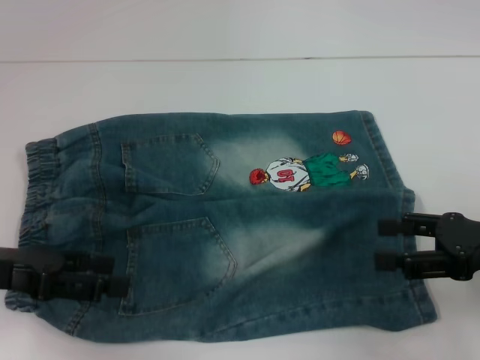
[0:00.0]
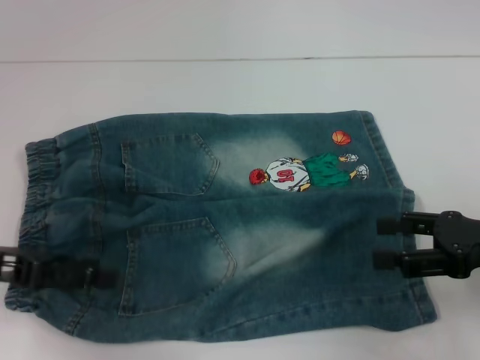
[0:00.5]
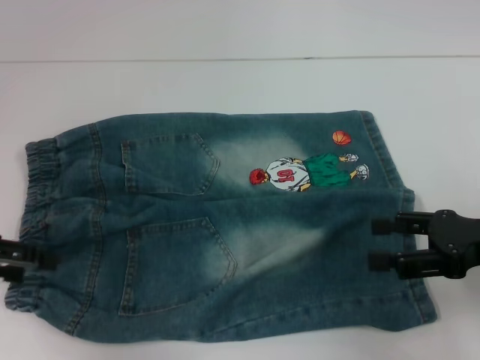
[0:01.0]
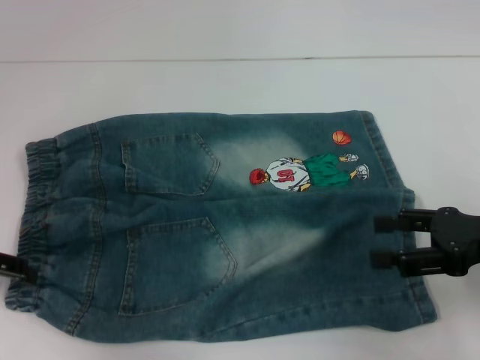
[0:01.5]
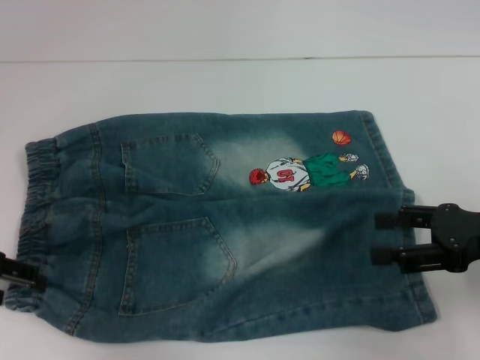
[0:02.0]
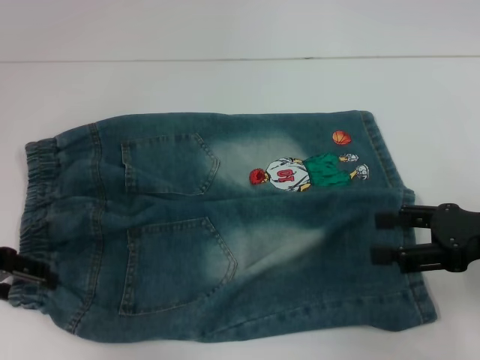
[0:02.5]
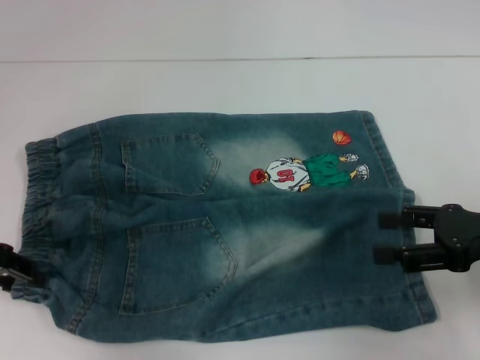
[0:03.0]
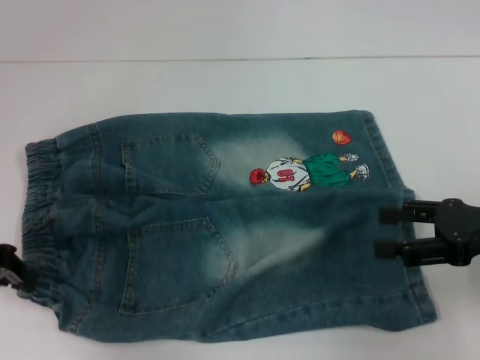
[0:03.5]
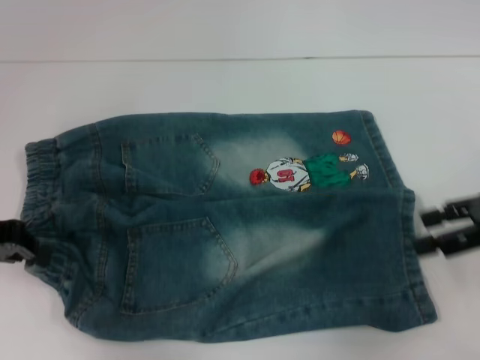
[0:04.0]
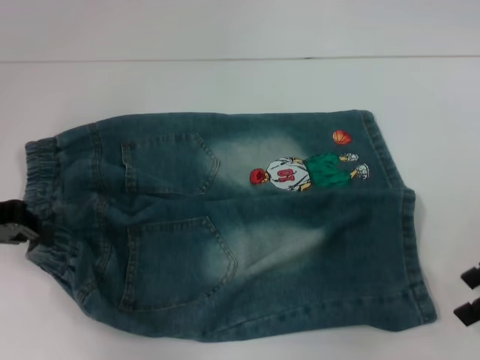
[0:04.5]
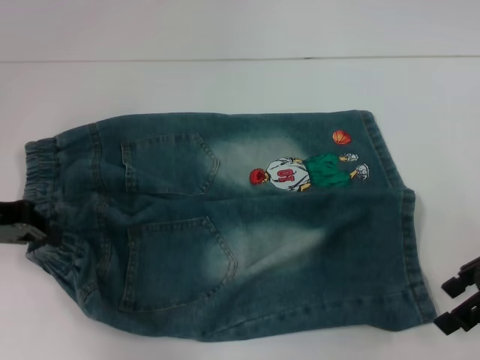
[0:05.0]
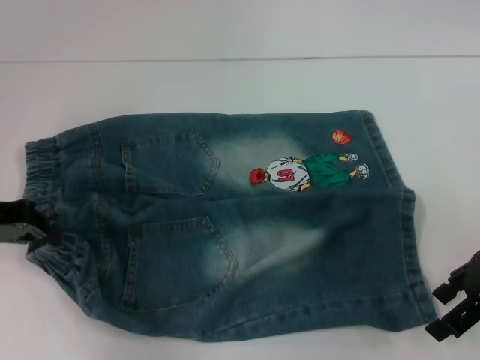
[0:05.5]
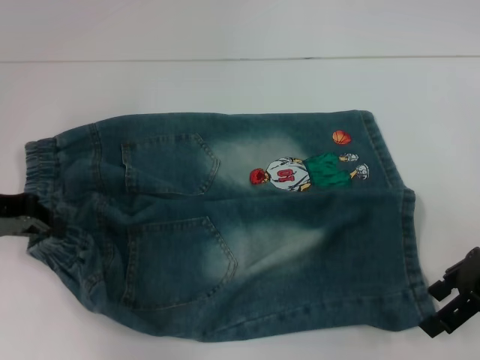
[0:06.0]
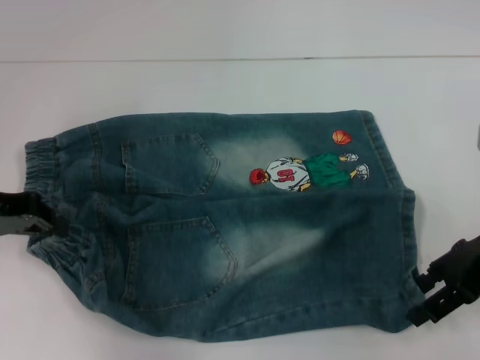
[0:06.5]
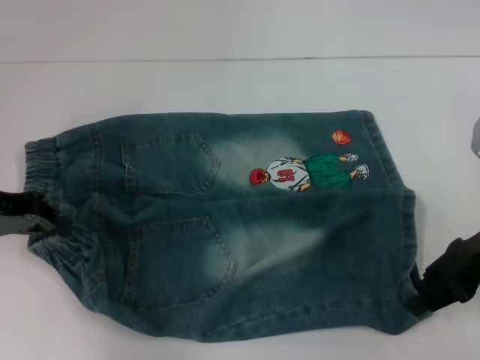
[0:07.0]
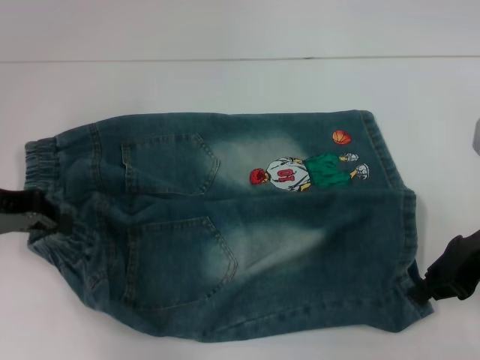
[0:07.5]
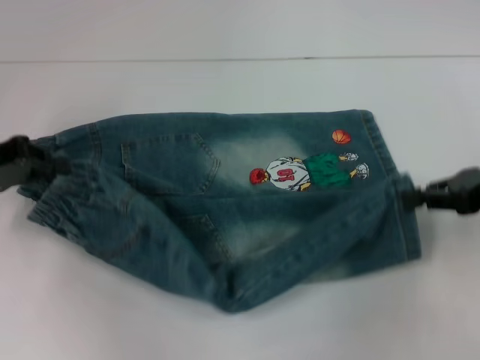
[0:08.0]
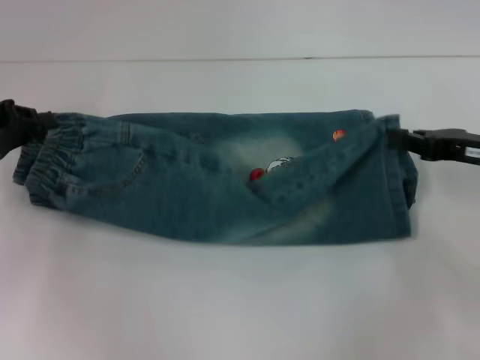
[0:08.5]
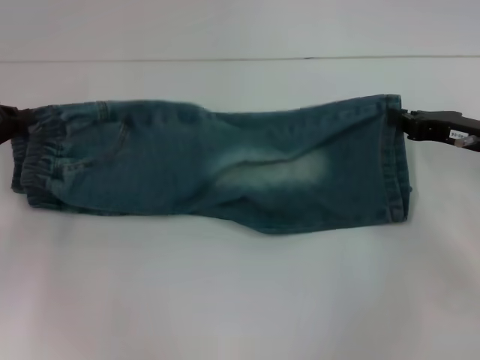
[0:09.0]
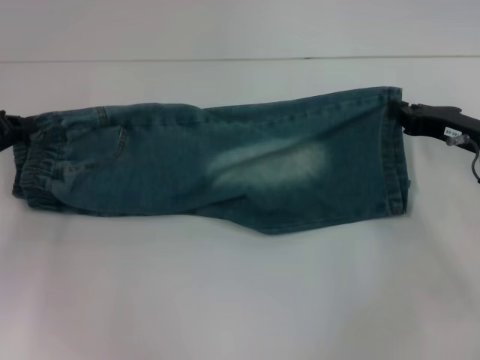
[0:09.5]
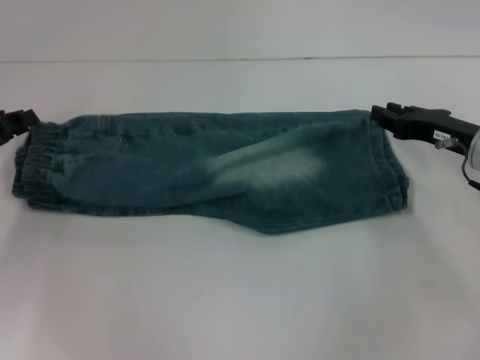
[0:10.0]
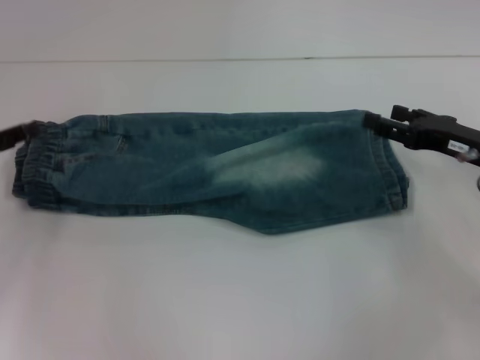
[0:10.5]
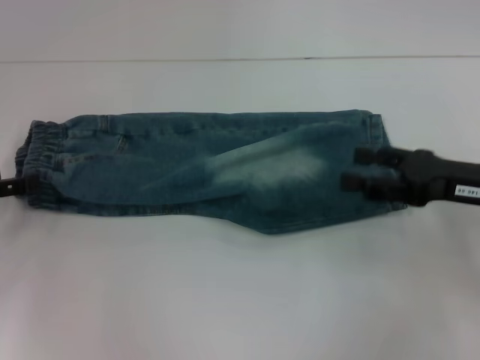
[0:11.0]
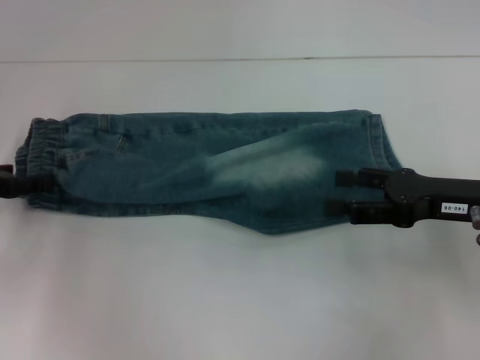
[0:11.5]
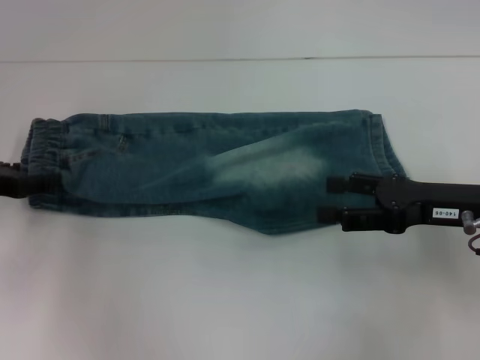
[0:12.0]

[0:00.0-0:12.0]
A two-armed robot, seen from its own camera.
Step, 0.0 to 3.0 s: Hold the lower left waistband with your left hand.
Step, 3.5 to 7.5 s: Grab the lower right pant leg with your right hand.
Step, 8.0 to 9.5 s: Fold upward with your right hand.
0.0 to 2.0 s: The left gripper changes place by some 5 cm.
2.0 to 4.0 s: The right gripper changes place by about 5 cm. Meanwhile the left gripper closes.
4.0 to 6.0 s: The right gripper changes place by about 5 cm.
6.0 to 8.0 s: The right gripper closes up.
8.0 to 10.0 s: The two grippers go some 5 cm downward.
10.0 to 12.0 s: The right gripper moves backward, some 5 cm, and opens up. Meanwhile the left gripper opens up.

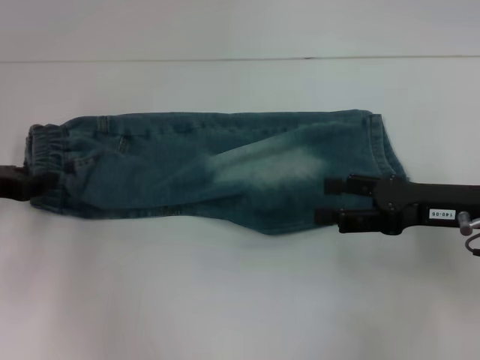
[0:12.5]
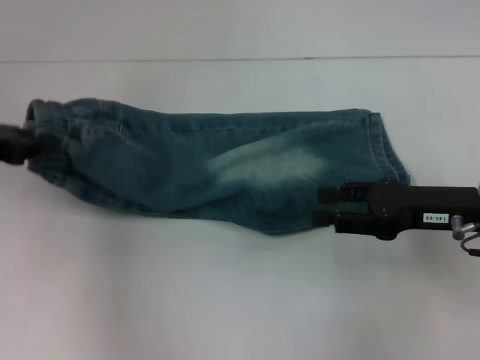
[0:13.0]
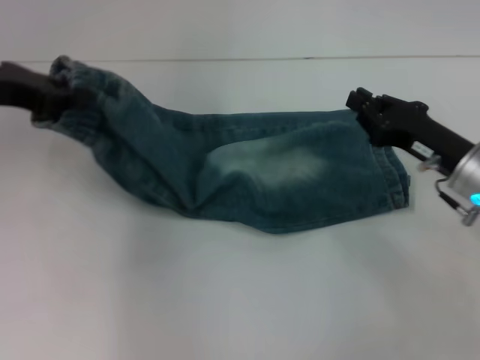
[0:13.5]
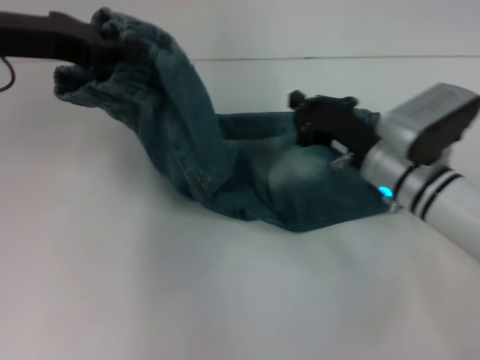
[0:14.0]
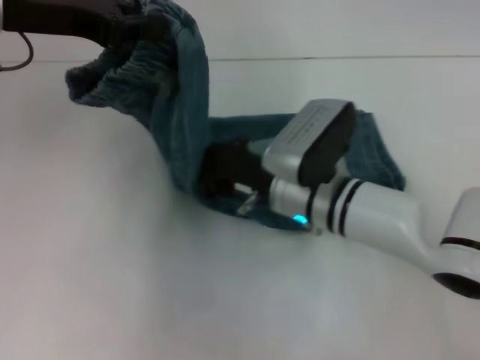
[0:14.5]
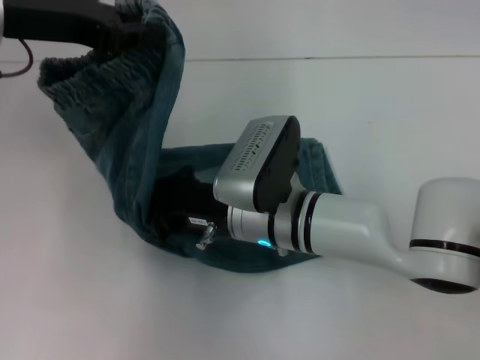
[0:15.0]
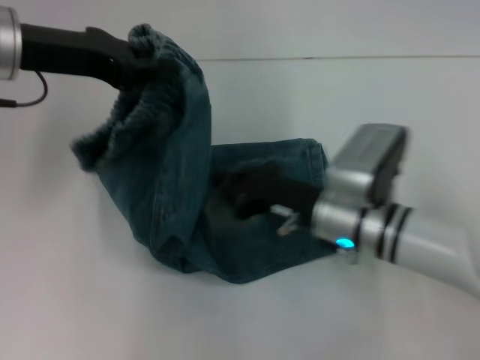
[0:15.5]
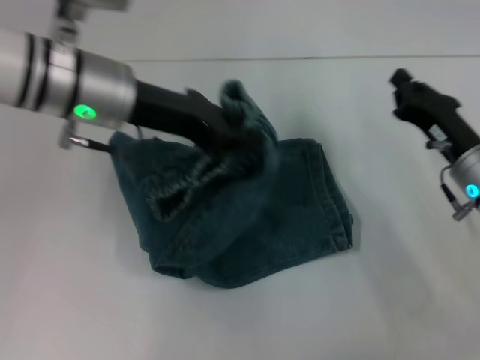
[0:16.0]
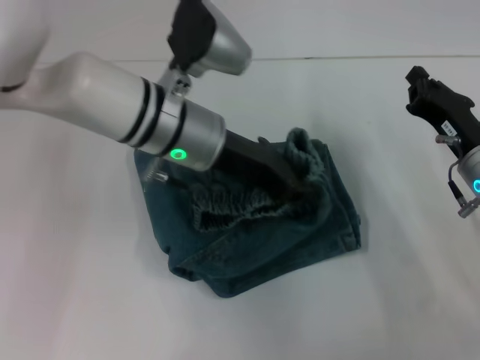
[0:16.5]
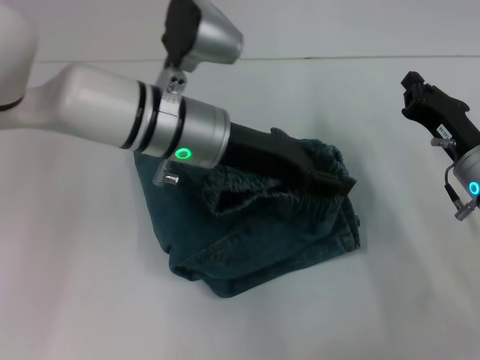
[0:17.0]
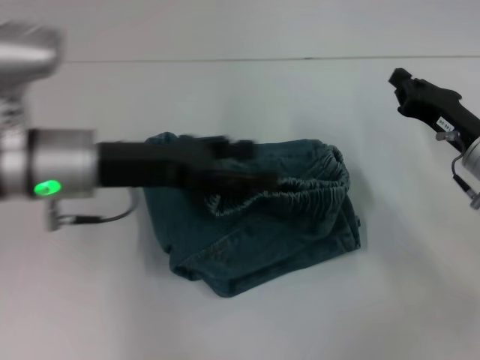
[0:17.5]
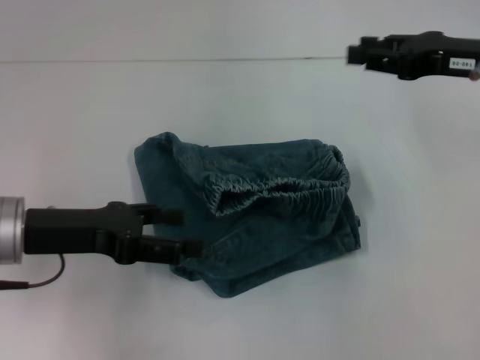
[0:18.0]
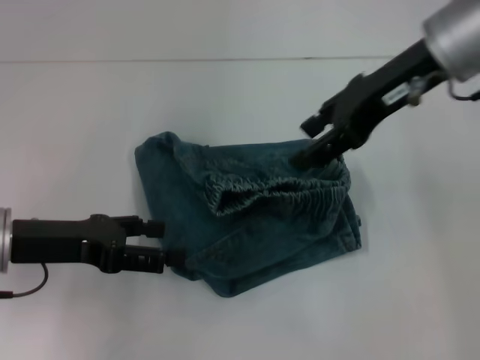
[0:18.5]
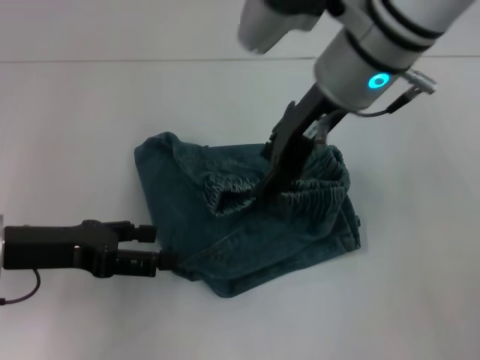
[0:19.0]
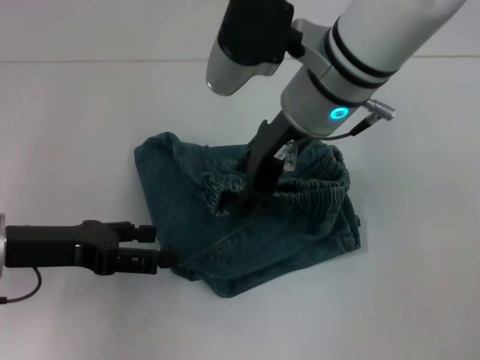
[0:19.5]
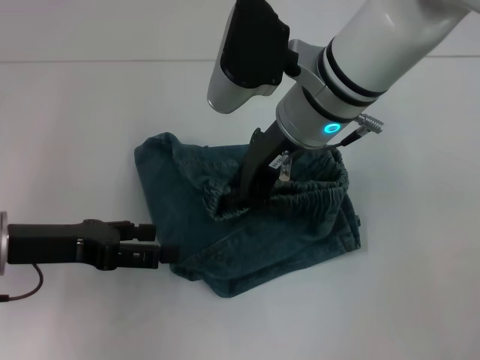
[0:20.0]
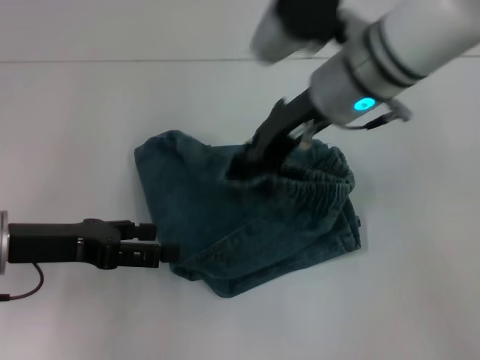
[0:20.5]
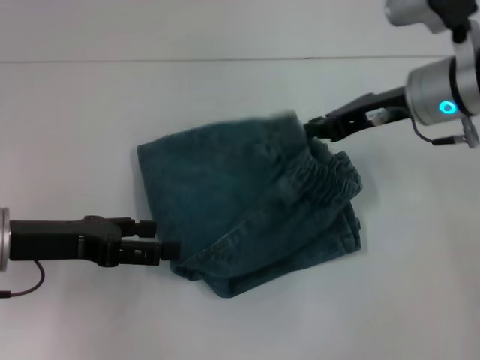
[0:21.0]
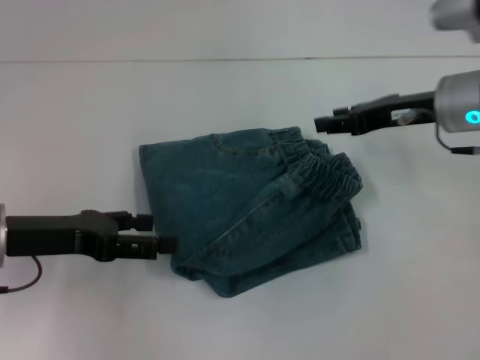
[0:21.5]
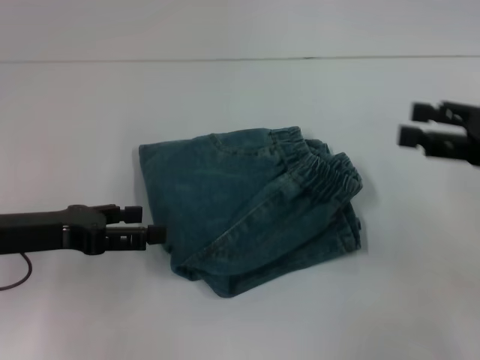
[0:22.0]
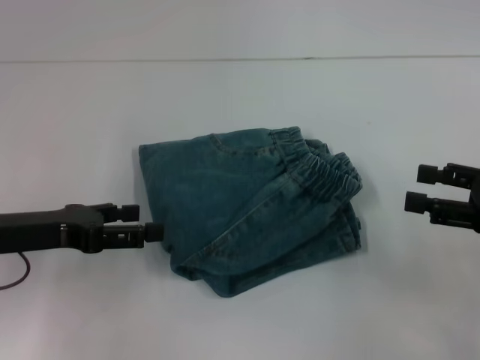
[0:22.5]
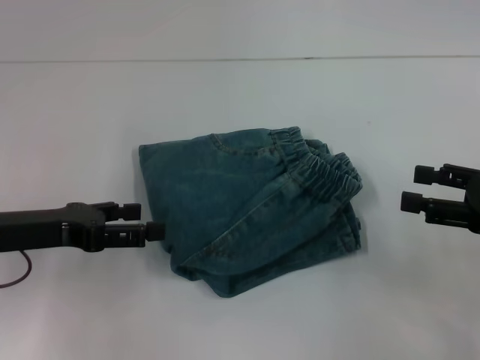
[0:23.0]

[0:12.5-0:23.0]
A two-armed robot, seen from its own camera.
Step, 13.0 to 15.0 s: Press the middle of the pants with your right hand.
Step, 15.5 to 17.0 s: Fold to the right with your left hand.
Step, 17.5 to 21.0 s: Adjust the pants with your right hand.
12.5 to 14.5 s: The right gripper shifts roughly 20 cm to the left, and closes. The left gripper shifts about 20 cm upward and to the right.
14.5 to 16.5 s: The right gripper shifts approximately 20 cm to the right, while the left gripper shifts about 20 cm to the right and downward.
16.5 to 19.0 s: The right gripper shifts roughly 25 cm upward and to the left, and opens up, while the left gripper goes about 20 cm to the left and backward, and opens.
19.0 to 21.0 s: The right gripper shifts approximately 15 cm to the right and downward, and closes.
21.0 to 23.0 s: The right gripper travels to the right and backward by about 20 cm, and opens its fingers.

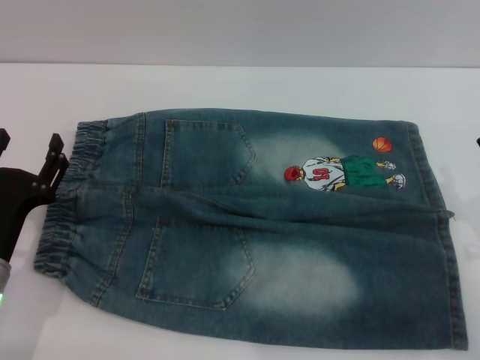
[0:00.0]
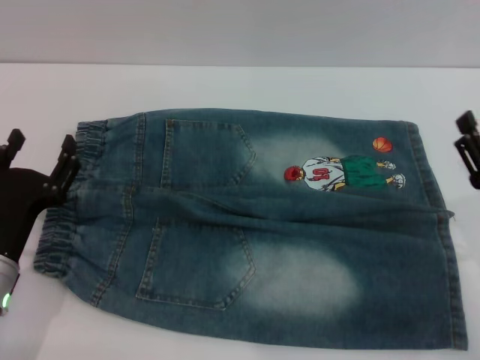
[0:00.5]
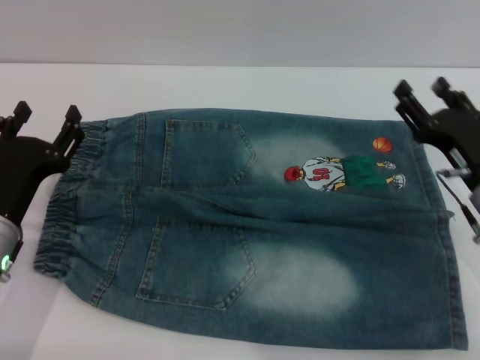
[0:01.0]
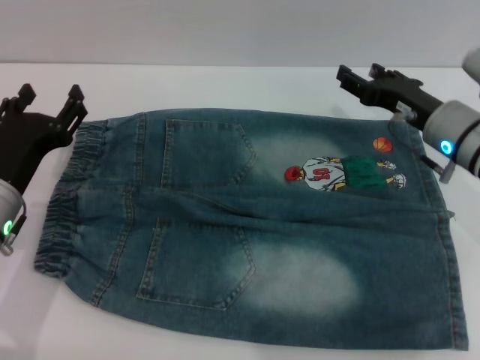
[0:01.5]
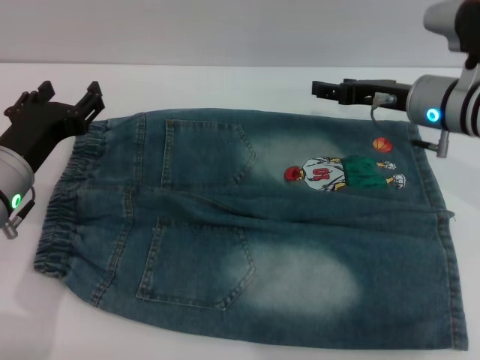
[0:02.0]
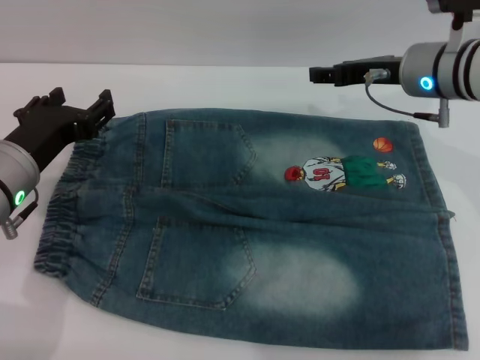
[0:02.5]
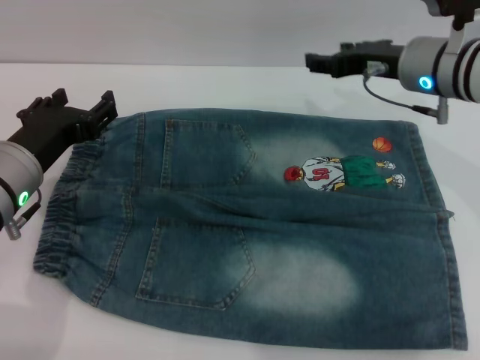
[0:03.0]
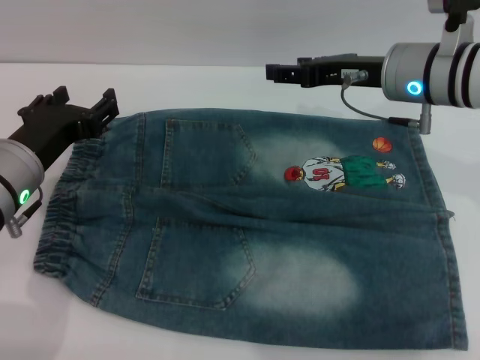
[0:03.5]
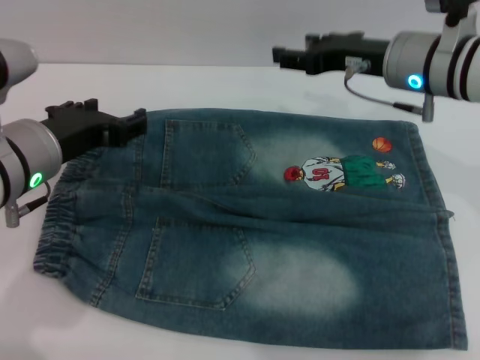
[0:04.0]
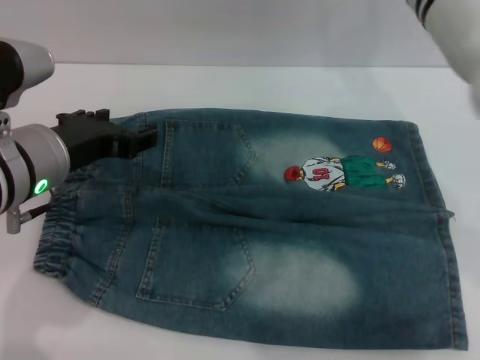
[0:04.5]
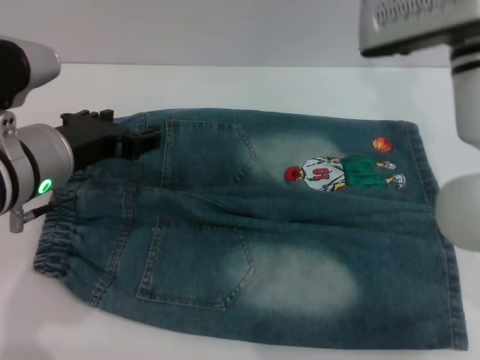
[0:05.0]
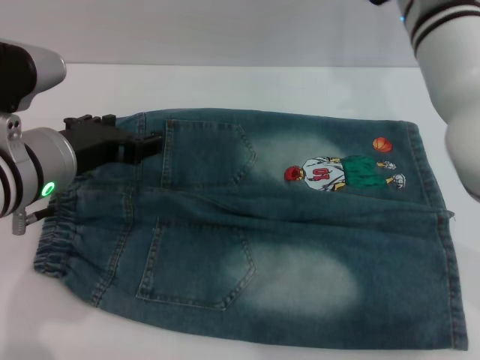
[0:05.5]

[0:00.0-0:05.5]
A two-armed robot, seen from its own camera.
0.0 to 2.0 s: The right gripper moves forward, some 20 cm; the left gripper moves upward and forward, roughly 10 cm.
2.0 to 3.5 s: The right gripper heads upward, covering about 5 cm.
3.5 to 5.5 s: The right gripper moves approximately 5 cm, while the left gripper moves some 5 cm.
